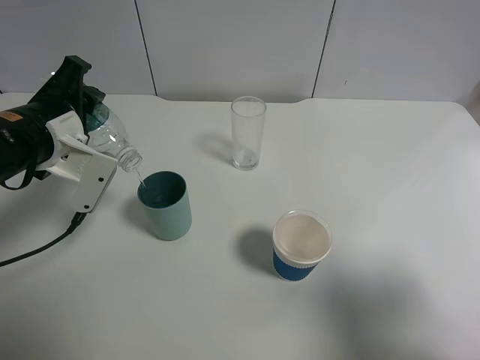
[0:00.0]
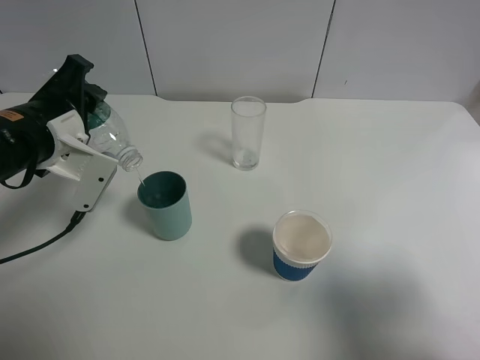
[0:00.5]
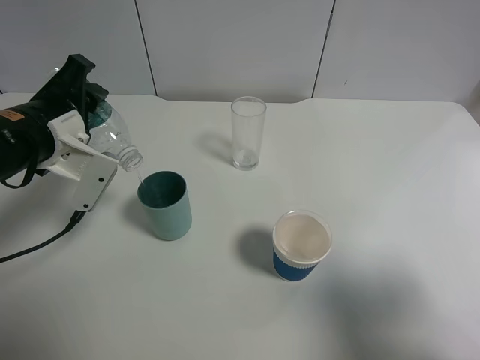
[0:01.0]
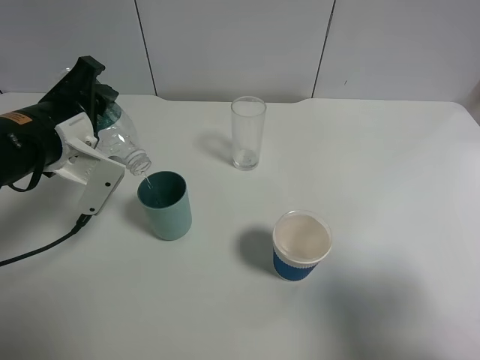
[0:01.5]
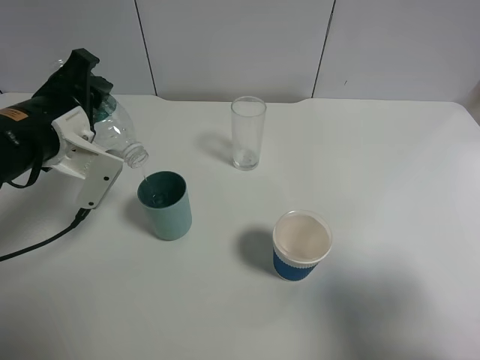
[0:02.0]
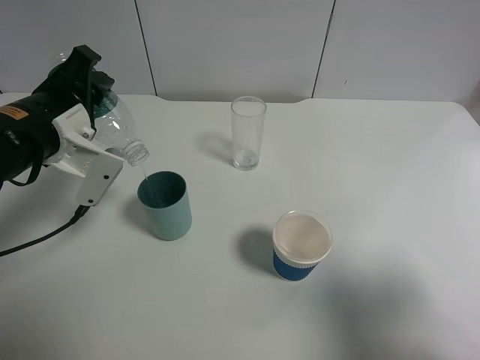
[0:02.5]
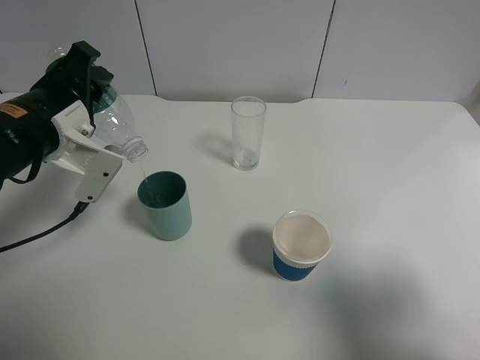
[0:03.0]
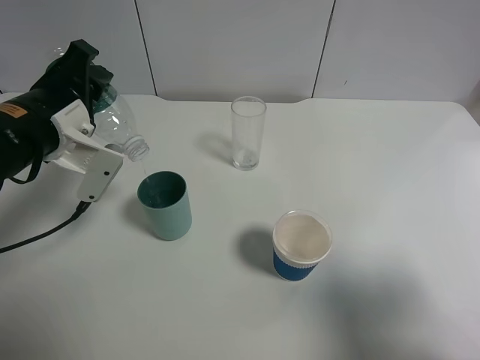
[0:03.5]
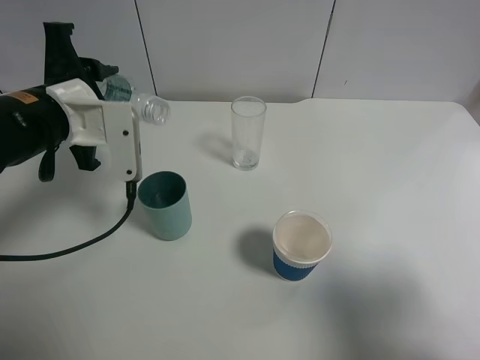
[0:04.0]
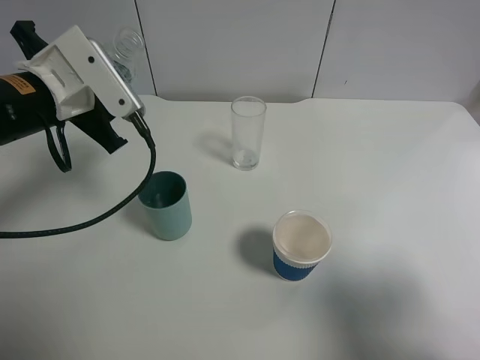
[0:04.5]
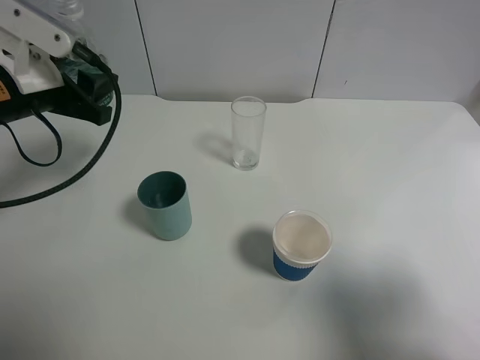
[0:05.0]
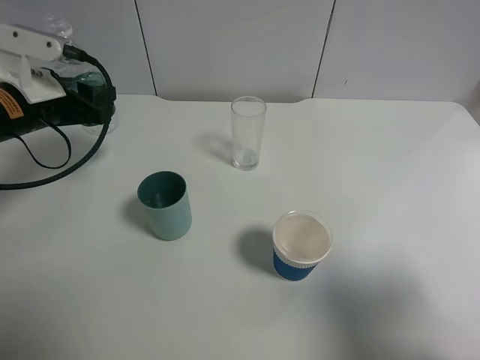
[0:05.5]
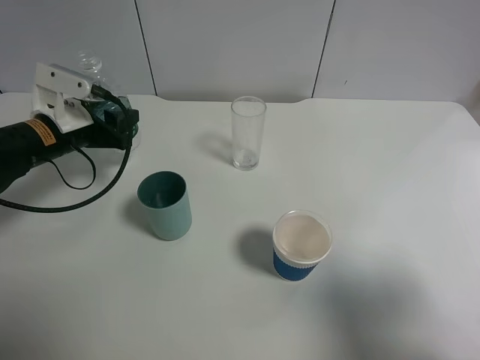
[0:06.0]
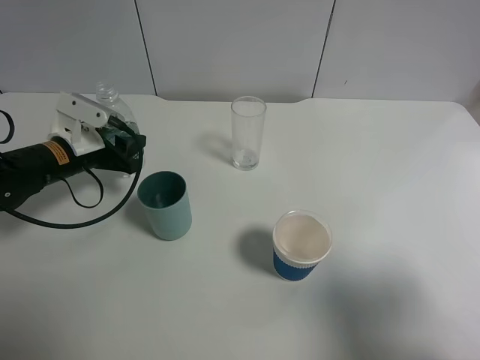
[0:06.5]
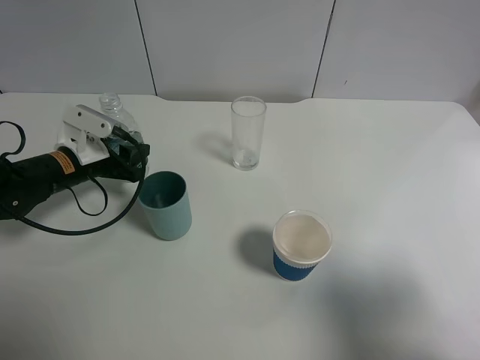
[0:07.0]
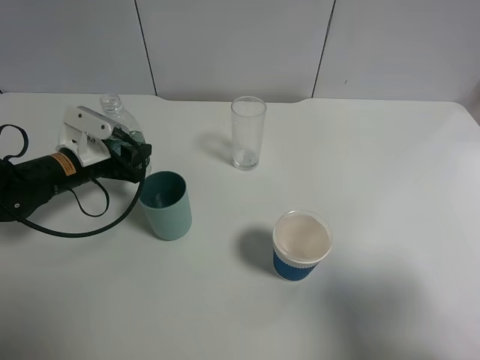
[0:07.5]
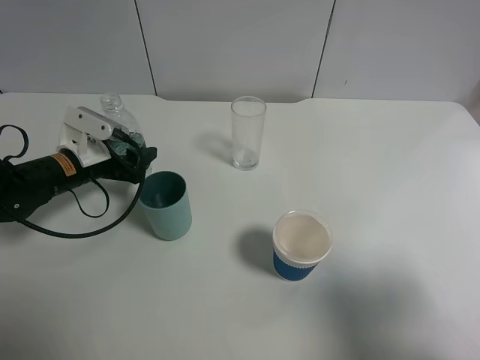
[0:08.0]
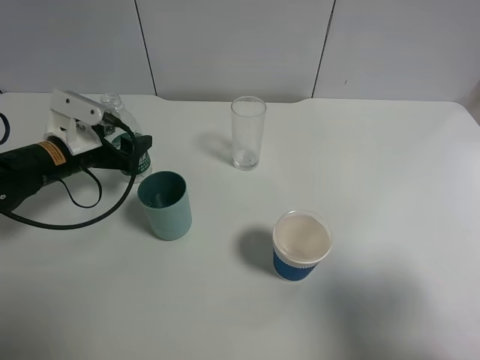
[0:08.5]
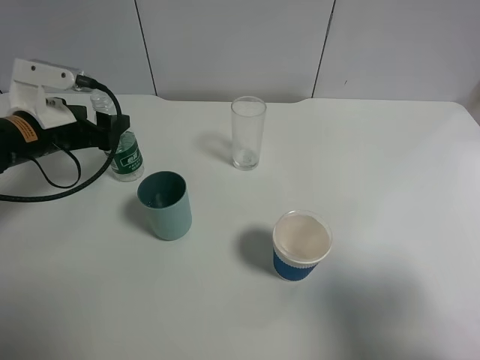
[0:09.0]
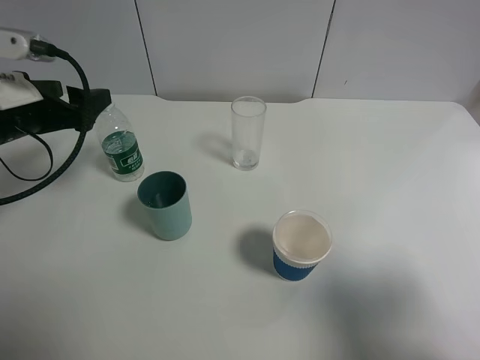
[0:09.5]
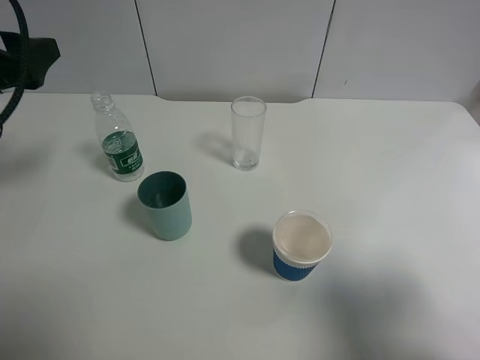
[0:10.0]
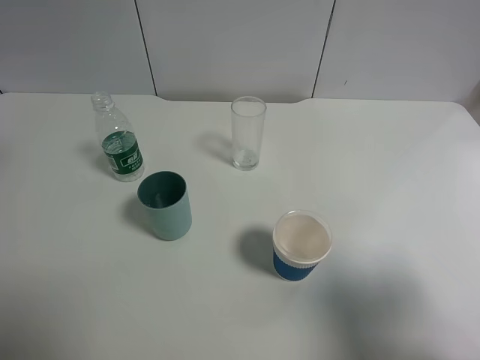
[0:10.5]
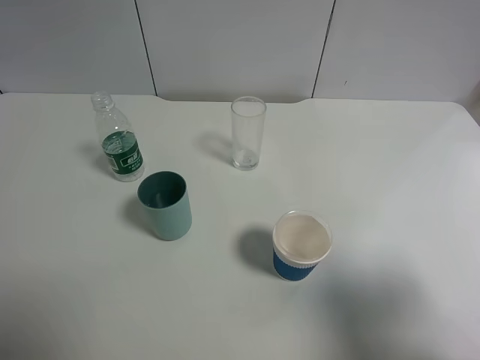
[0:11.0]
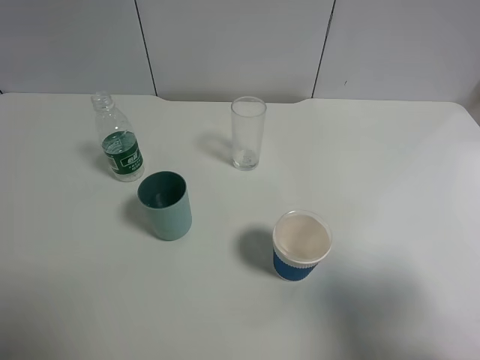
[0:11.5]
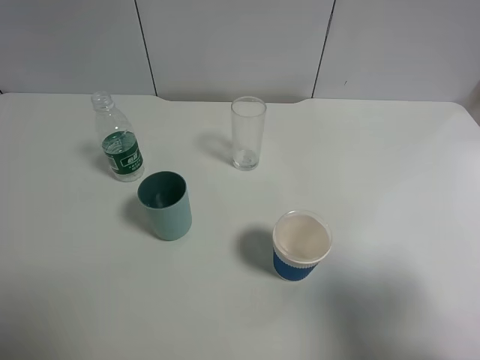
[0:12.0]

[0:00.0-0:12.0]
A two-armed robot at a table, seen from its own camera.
Task of the whole recording: use a gripper to hold the bottle of the drink and pour it into a random cup.
Step, 0:00.0 to 0:04.0: Pour the mineral water into the cyan cup with the left gripper.
Step, 0:04.5 to 0:09.0: Place the mineral water bottle on the table with the left gripper.
0:00.0 to 0:02.0: The grippers stay close to where they were, moving slightly.
0:04.0 to 0:06.0: The left gripper heads downward, forward and to the left, covering approximately 15 cm.
0:06.0 to 0:08.0: The left gripper moves downward, about 5 cm, and opens.
0:08.0 to 0:10.0: The left gripper travels upward by approximately 20 cm.
0:10.0 to 0:12.0: The left gripper travels backward by some 20 cm.

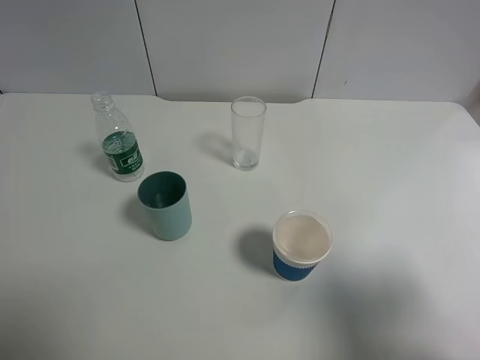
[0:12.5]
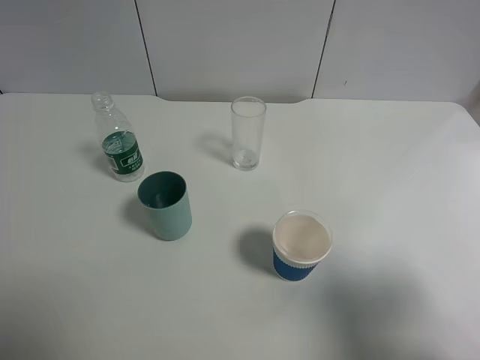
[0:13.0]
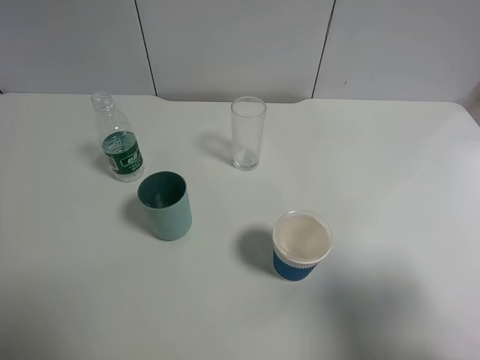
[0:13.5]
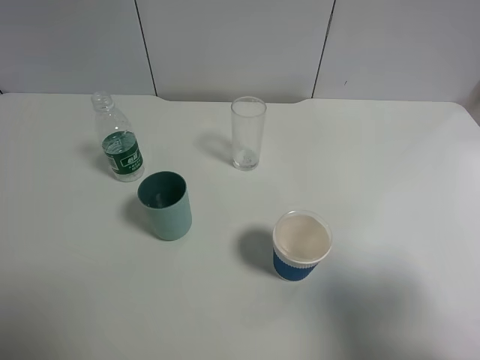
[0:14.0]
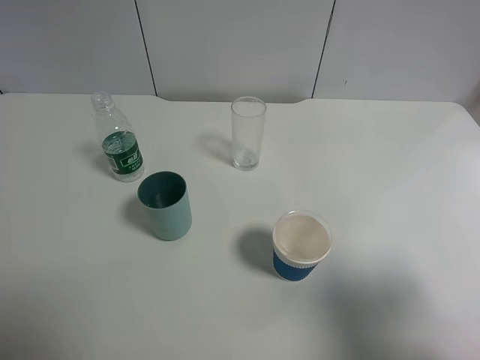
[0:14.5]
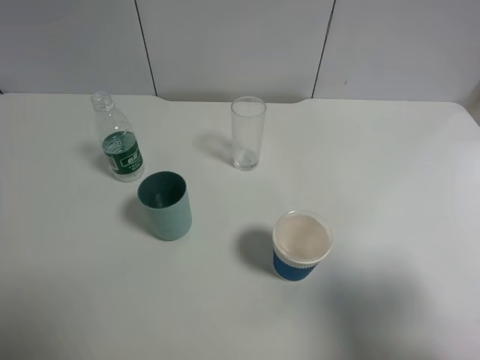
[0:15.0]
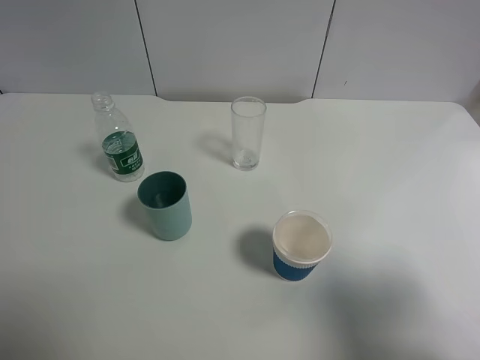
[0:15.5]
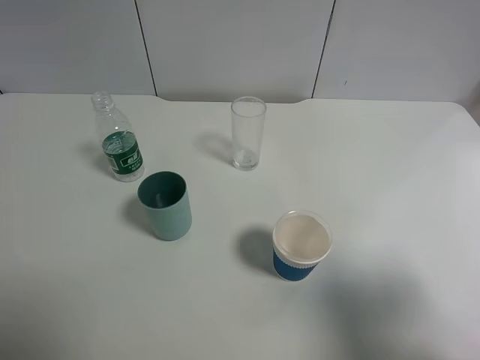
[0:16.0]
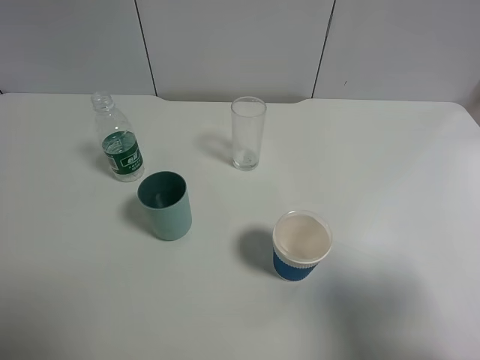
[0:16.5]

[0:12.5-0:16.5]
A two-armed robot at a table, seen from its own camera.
Task of the whole recording: use a gripper to hold the bottle of the drink and pour it into a random cup.
0:14.5 to 0:16.5: The two grippers keep their place.
